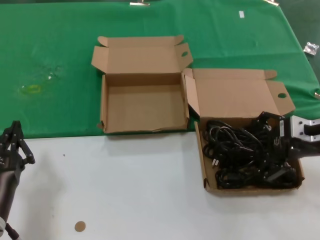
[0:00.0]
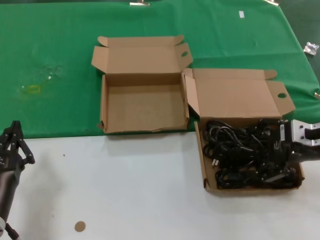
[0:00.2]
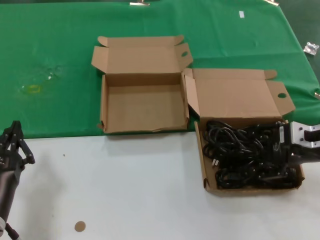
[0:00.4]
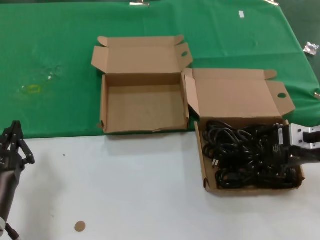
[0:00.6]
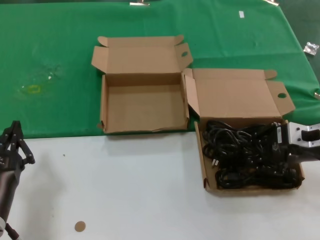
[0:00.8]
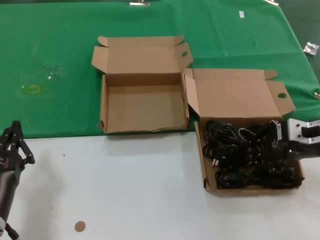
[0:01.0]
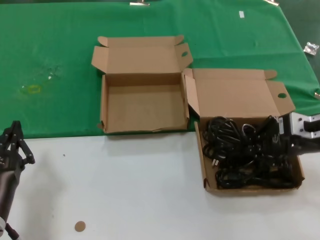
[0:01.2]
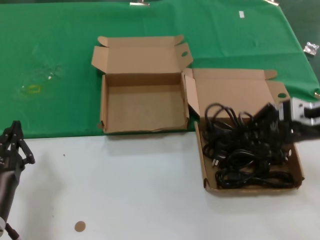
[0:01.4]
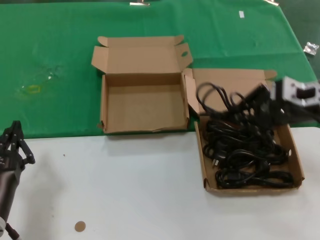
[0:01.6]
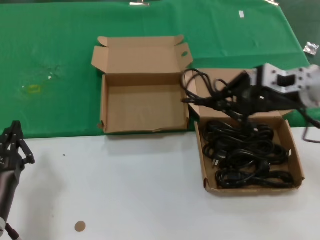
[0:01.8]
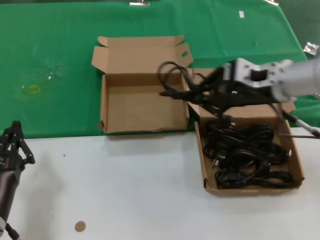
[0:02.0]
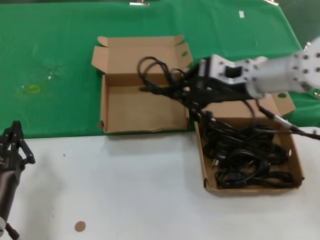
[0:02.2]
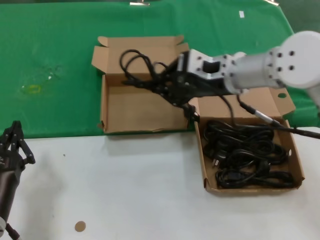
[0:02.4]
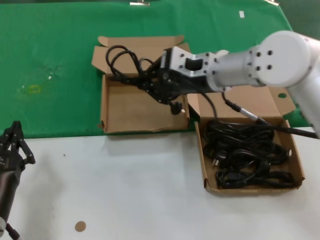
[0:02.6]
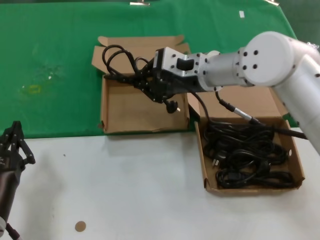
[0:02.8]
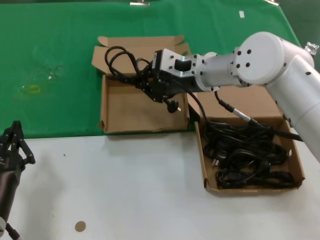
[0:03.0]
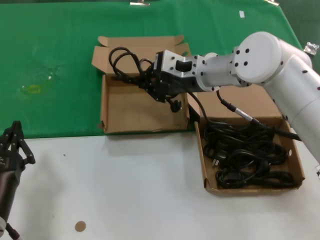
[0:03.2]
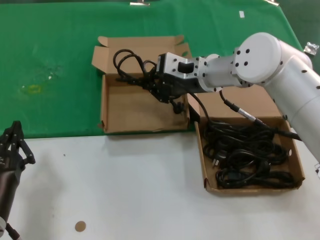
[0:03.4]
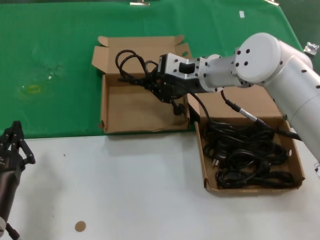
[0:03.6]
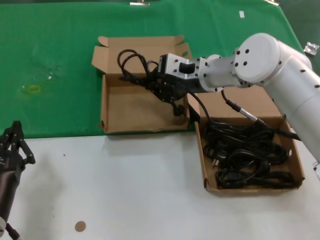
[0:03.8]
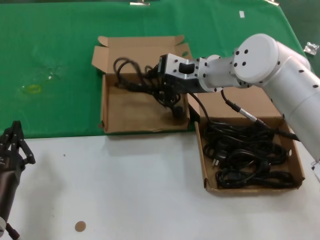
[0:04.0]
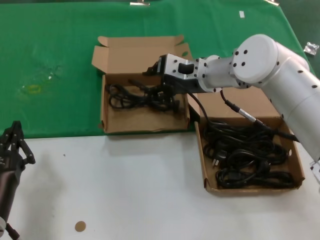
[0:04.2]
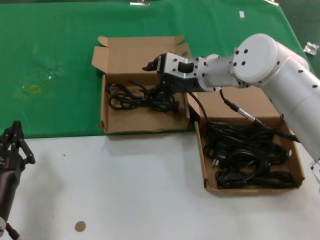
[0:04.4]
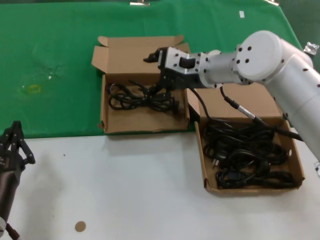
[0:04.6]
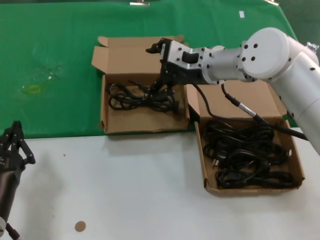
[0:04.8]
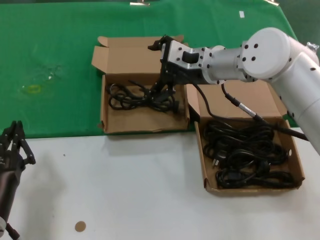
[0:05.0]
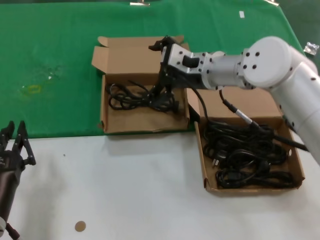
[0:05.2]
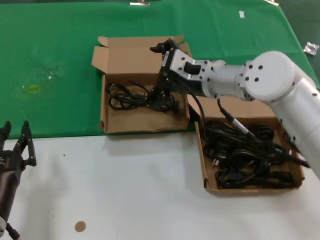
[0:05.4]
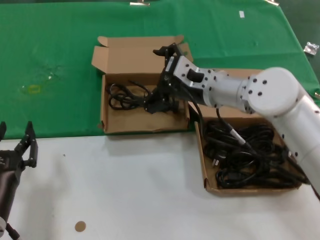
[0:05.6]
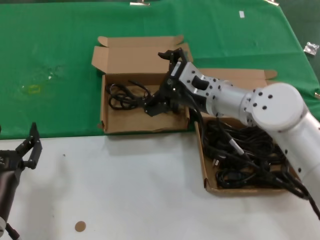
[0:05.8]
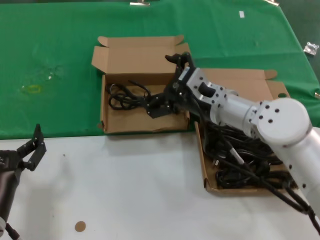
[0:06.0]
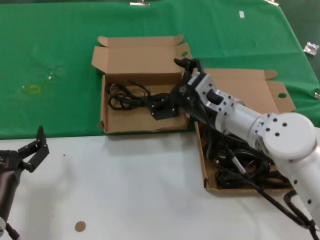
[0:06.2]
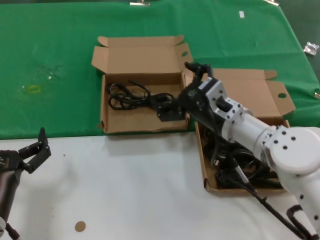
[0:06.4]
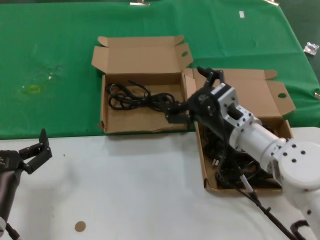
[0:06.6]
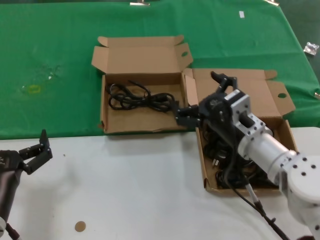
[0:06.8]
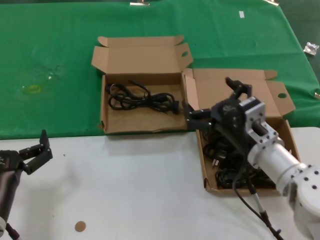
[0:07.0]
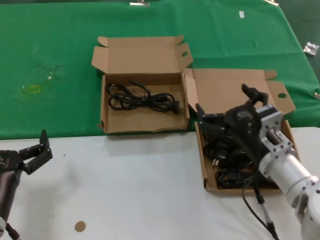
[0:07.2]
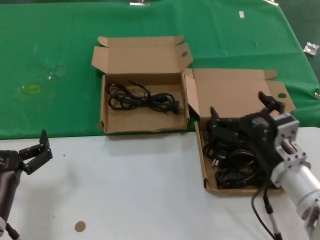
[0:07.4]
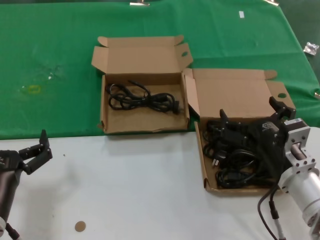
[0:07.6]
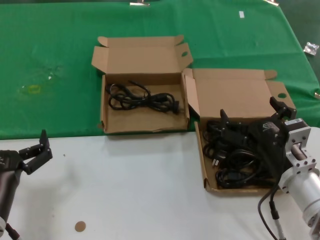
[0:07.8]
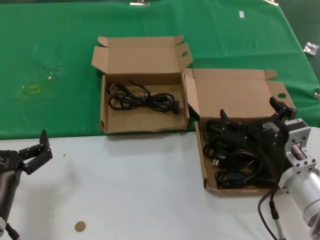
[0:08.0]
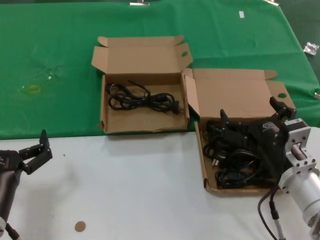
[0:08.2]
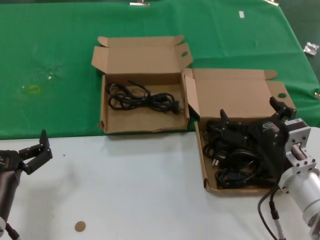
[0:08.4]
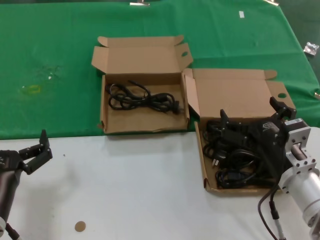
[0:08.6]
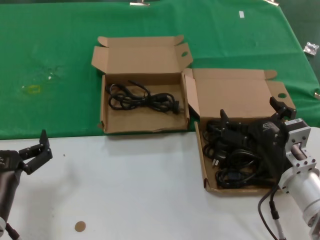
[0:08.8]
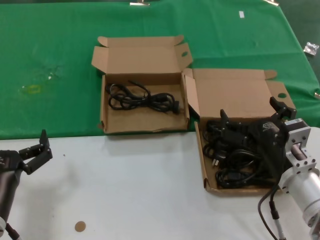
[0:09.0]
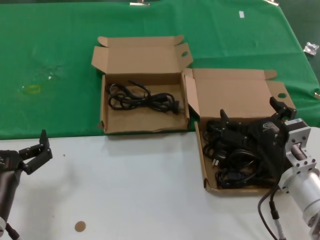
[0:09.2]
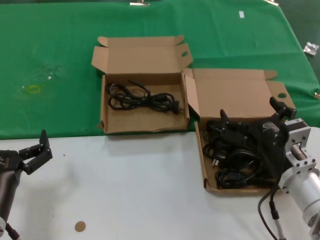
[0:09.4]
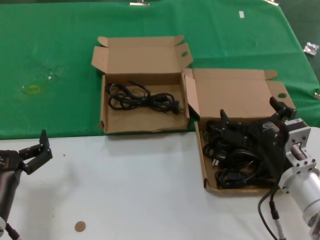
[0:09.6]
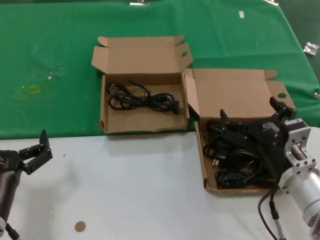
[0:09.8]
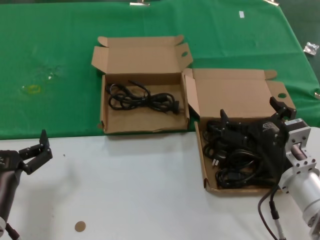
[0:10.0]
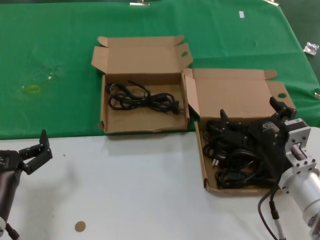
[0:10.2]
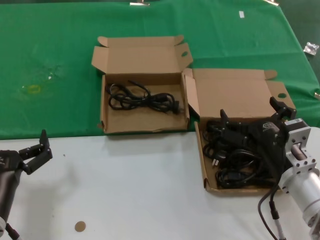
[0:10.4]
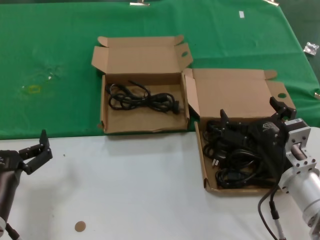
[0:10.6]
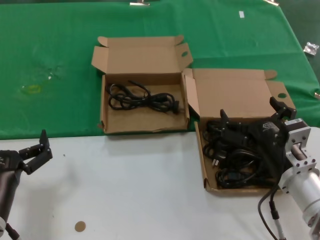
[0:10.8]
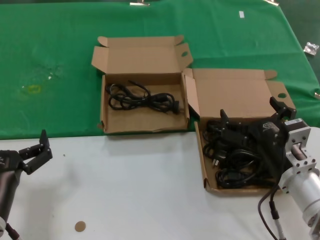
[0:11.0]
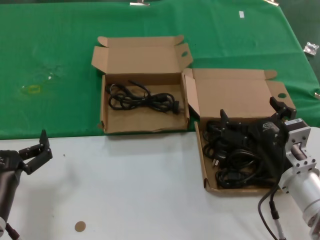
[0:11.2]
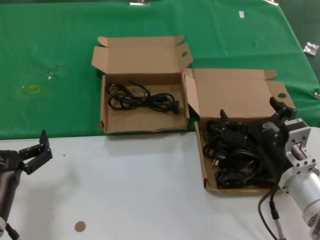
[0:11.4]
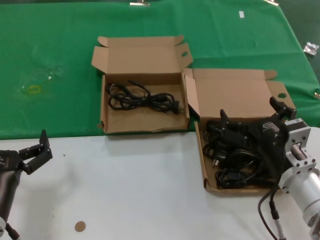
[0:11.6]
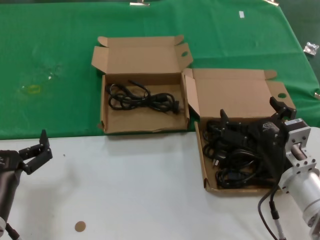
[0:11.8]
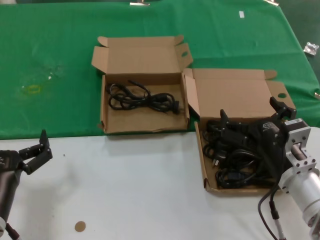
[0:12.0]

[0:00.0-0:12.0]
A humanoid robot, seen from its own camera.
Task of the whole recording: take the parts from the box containing them and put them into an empty box.
Step, 0:00.8 to 0:04.6: Place the data cable in the another box.
0:00.0 to 0:01.6: The right hand shifts roughly 5 cm upward.
0:01.6 to 0:03.0: The right hand moves to the left and forward, about 20 cm.
0:03.0 to 0:04.4: The hands stay close to where they were, moving slightly.
0:04.4 to 0:06.0: The right hand shifts approximately 10 cm backward and downward.
0:06.0 to 0:07.6: The right hand shifts some 20 cm backward, downward and to the right.
0:07.6 to 0:12.0: Both hands stay about where they are.

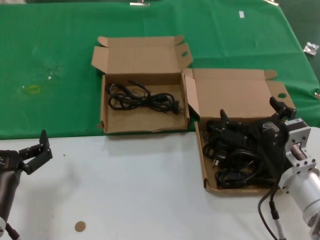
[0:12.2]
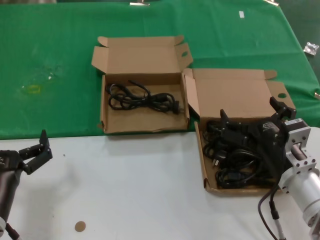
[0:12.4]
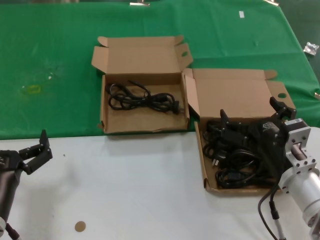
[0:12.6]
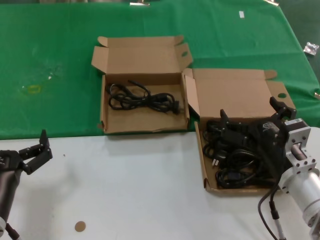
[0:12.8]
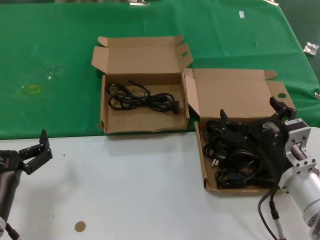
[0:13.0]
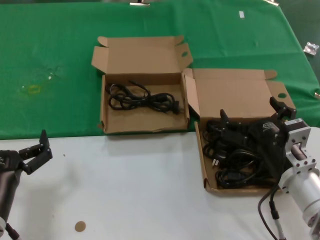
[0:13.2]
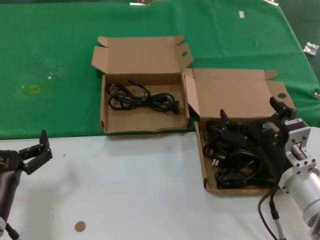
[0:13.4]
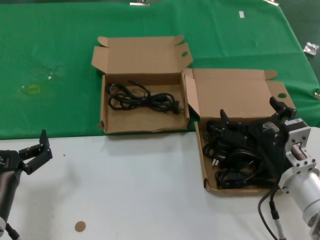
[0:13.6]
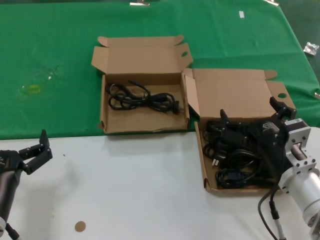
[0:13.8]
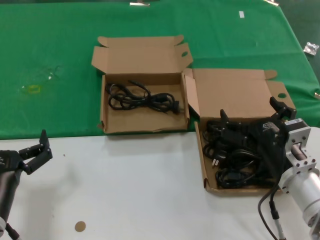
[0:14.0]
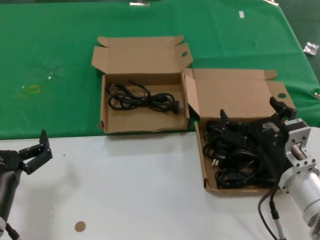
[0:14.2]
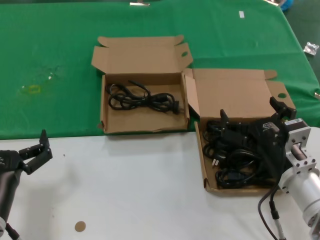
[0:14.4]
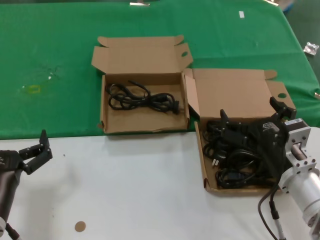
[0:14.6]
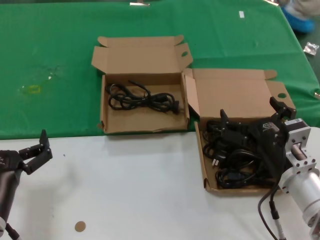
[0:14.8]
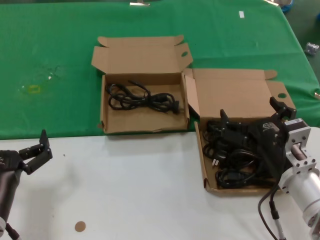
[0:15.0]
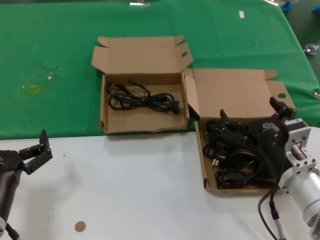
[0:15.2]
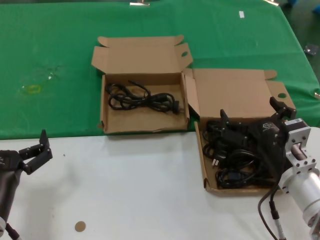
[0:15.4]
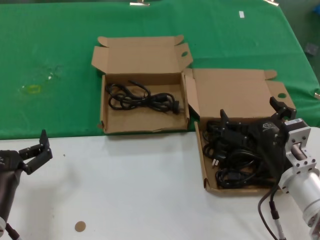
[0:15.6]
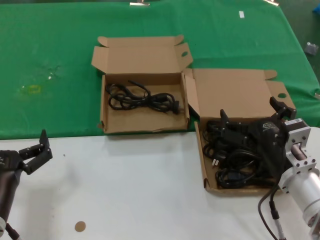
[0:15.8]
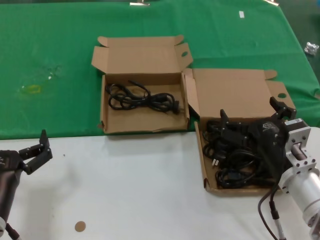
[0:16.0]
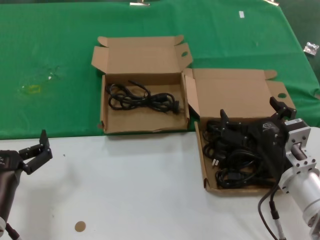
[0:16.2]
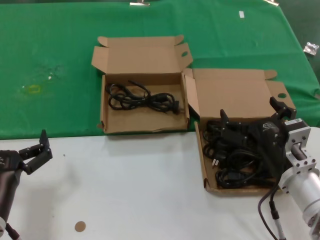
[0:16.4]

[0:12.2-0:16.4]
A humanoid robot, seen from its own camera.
Task of the whole recording: take the parts from the box containing them and put them into an empty box.
0:12.2 to 0:16.4: Both hands stay about where they are.

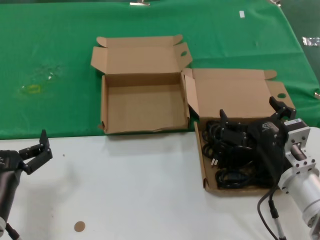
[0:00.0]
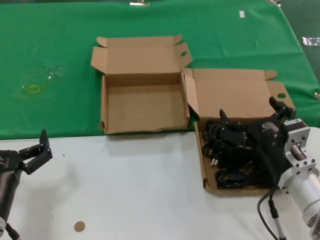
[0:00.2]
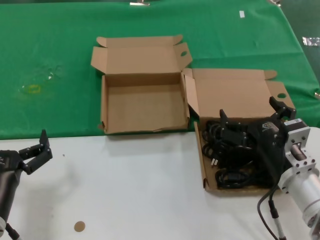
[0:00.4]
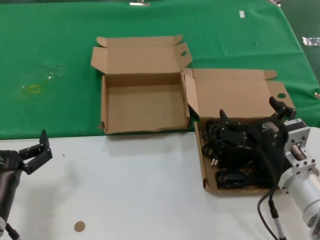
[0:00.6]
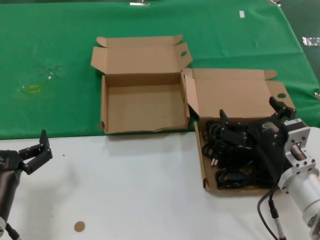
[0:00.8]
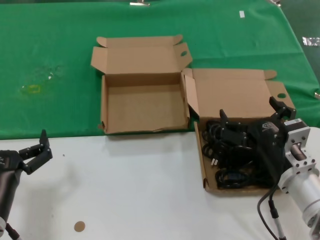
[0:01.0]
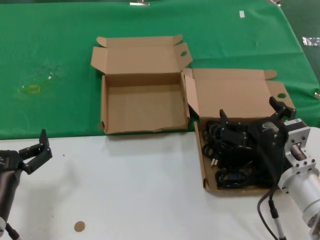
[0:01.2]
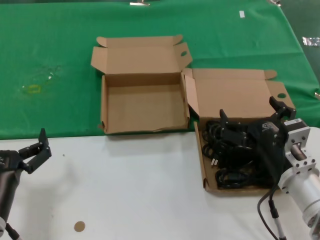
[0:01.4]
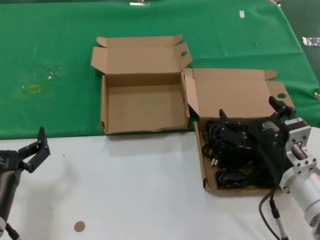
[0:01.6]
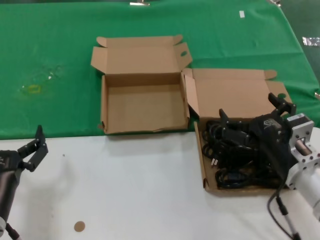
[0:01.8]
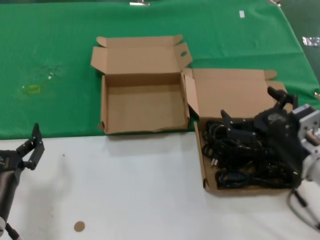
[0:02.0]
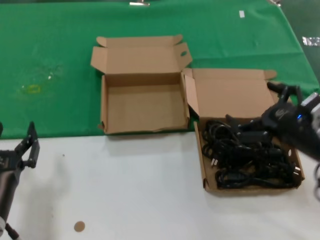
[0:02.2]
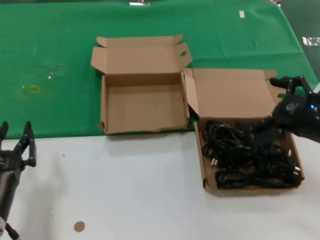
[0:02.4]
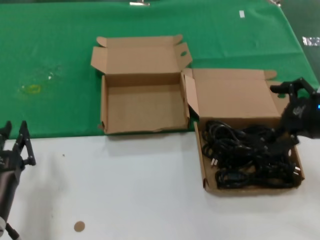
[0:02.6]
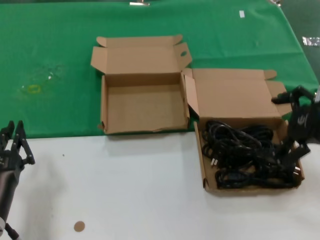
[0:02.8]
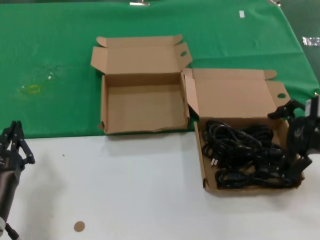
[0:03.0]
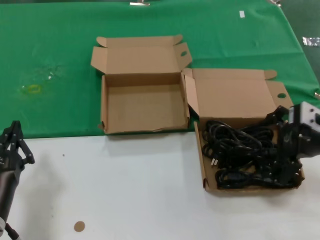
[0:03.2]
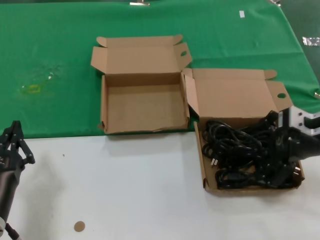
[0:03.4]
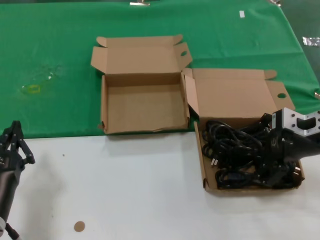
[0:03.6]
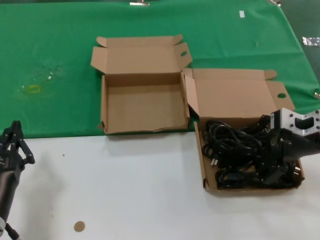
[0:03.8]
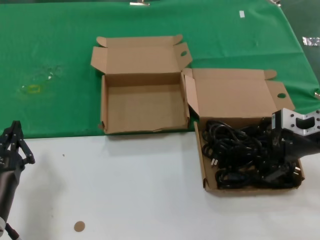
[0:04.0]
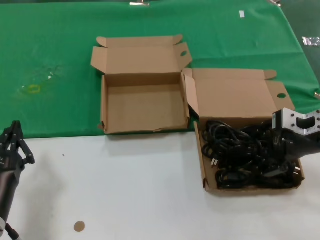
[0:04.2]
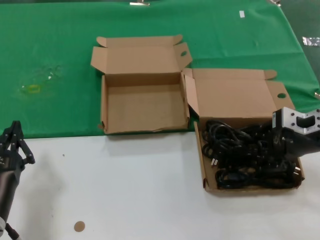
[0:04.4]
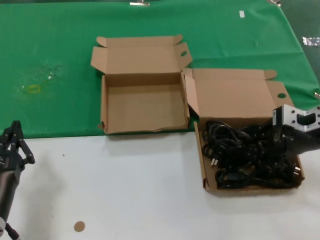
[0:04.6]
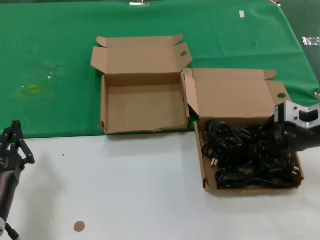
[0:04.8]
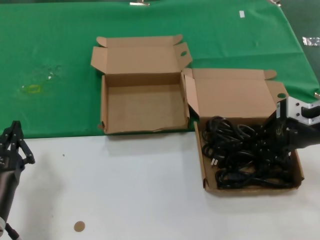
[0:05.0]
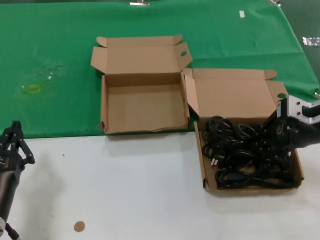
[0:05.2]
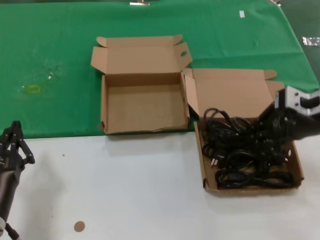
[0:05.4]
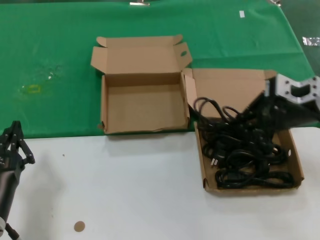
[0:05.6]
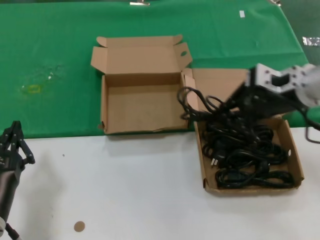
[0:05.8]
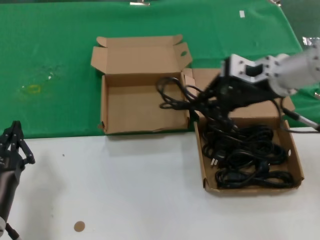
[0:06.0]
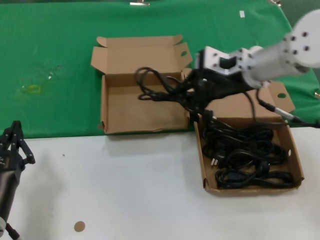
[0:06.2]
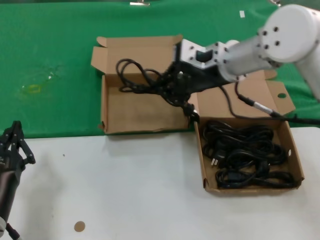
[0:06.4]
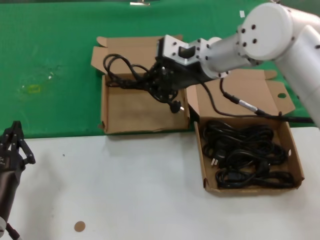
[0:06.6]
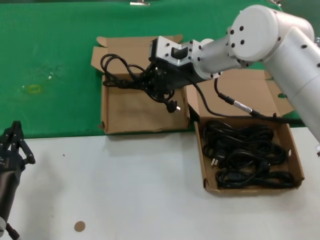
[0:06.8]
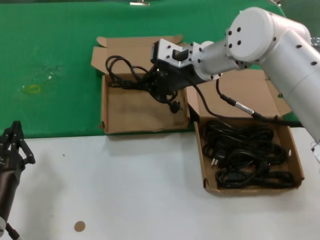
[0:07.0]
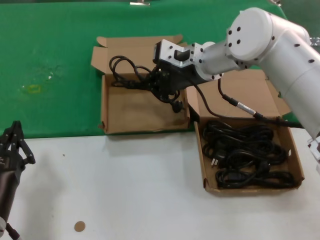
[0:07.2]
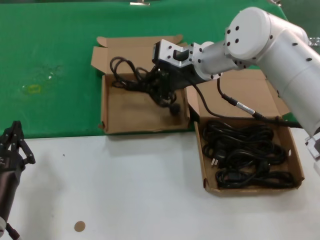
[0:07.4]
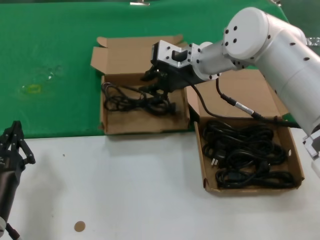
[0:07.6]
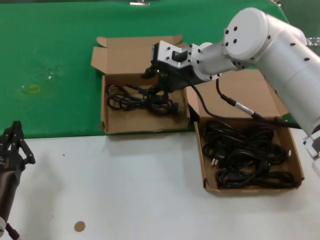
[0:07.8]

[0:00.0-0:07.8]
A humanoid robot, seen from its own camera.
Task of the whole recording: take the parts from the box containing them and put them into an empty box.
Step, 0:00.0 to 0:04.6: Grasp the data cable.
0:00.0 to 0:01.6: Both hands stay about where they are.
0:01.6 to 0:03.2: The right hand is displaced upward and to the right by approximately 20 cm.
0:03.2 to 0:04.6: The hands stay close to where they were, moving slightly.
0:04.6 to 0:06.2: The right hand shifts approximately 15 cm to the left, forward and upward.
0:06.2 to 0:07.8: The right hand travels to the left and forward by about 10 cm.
